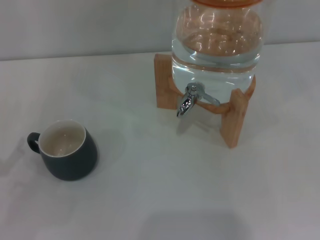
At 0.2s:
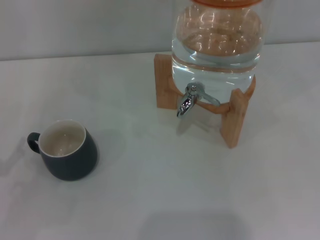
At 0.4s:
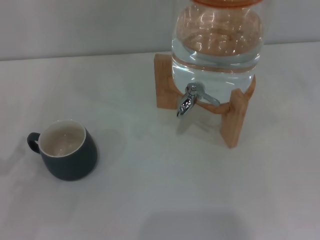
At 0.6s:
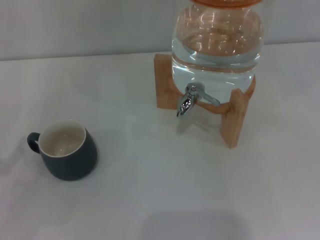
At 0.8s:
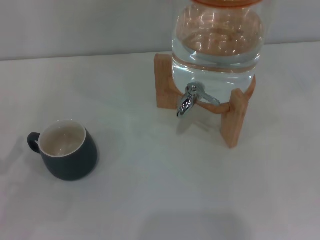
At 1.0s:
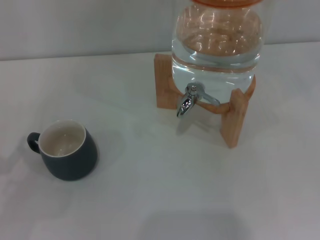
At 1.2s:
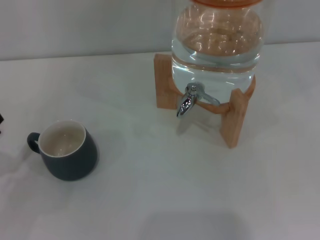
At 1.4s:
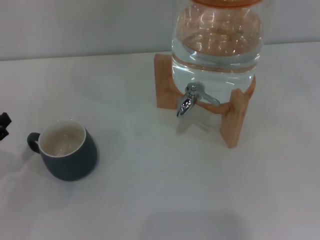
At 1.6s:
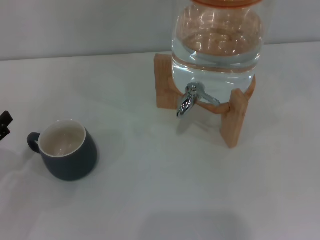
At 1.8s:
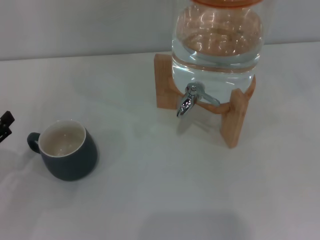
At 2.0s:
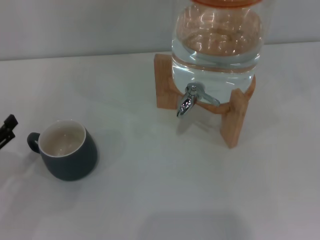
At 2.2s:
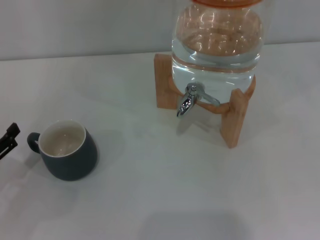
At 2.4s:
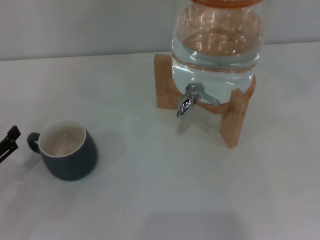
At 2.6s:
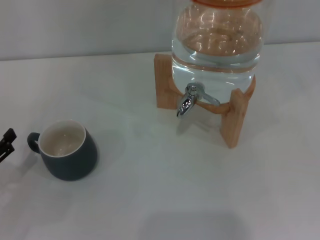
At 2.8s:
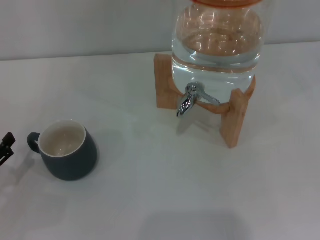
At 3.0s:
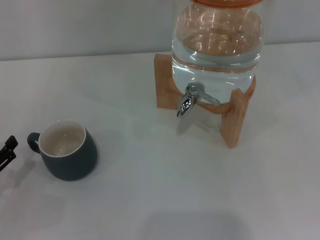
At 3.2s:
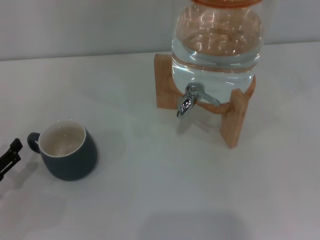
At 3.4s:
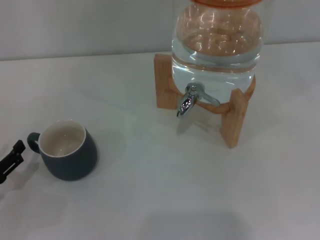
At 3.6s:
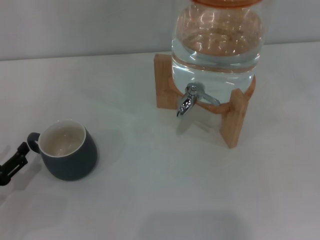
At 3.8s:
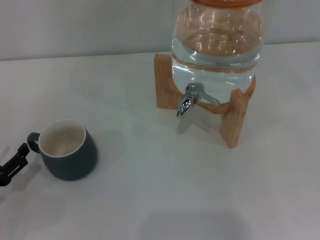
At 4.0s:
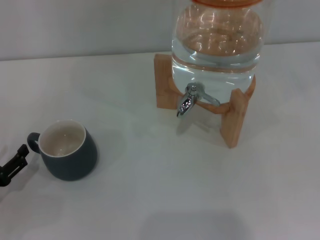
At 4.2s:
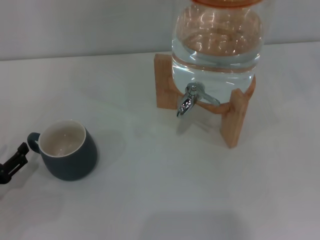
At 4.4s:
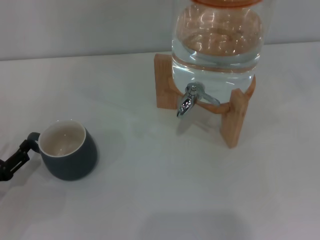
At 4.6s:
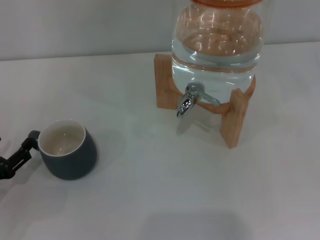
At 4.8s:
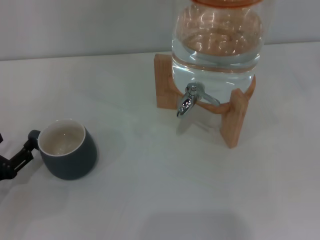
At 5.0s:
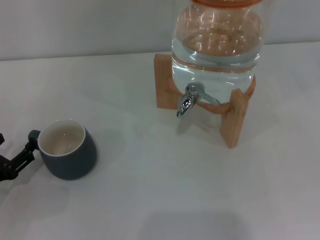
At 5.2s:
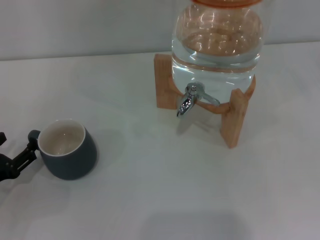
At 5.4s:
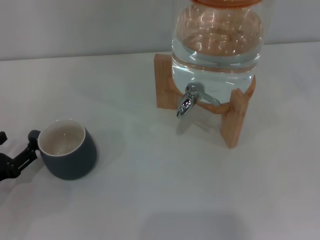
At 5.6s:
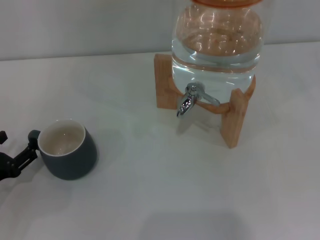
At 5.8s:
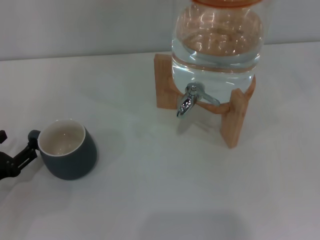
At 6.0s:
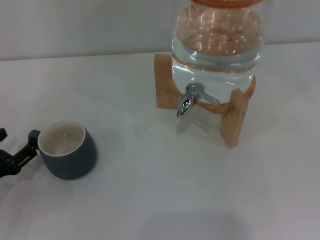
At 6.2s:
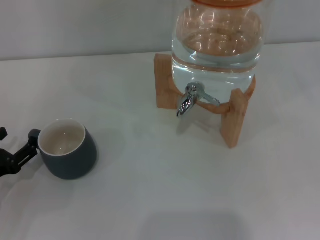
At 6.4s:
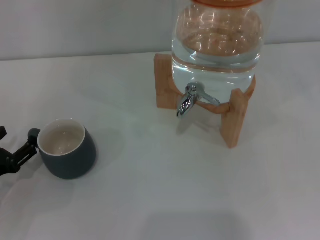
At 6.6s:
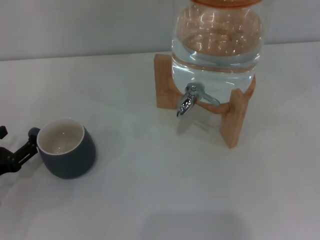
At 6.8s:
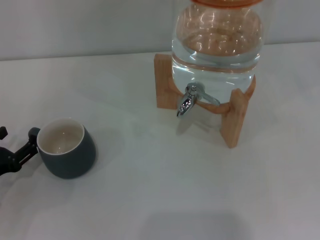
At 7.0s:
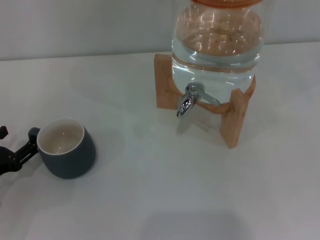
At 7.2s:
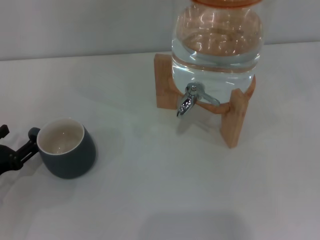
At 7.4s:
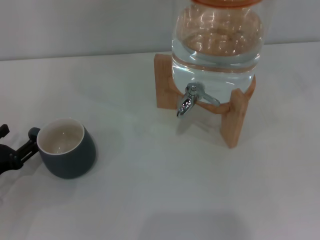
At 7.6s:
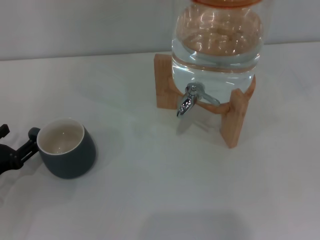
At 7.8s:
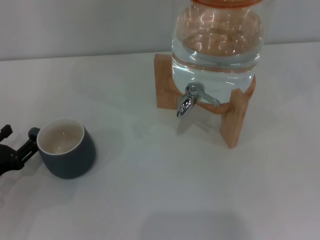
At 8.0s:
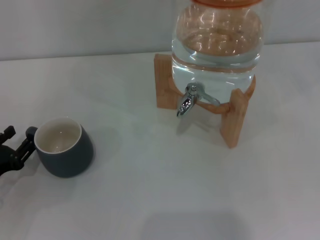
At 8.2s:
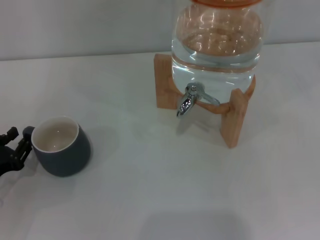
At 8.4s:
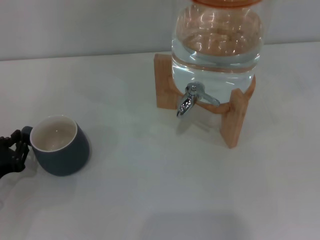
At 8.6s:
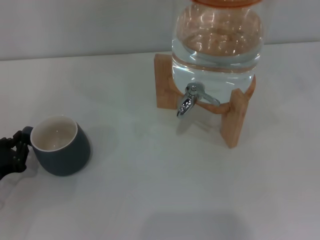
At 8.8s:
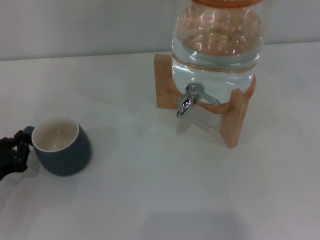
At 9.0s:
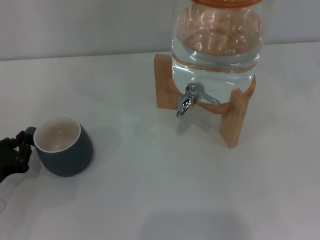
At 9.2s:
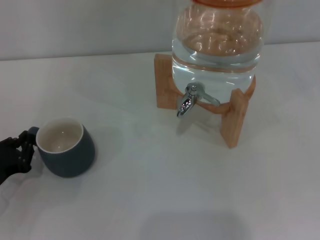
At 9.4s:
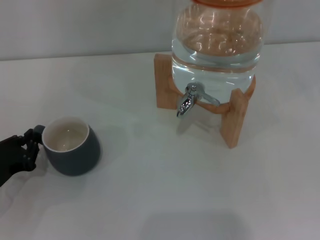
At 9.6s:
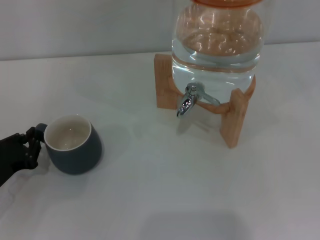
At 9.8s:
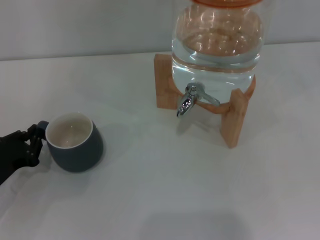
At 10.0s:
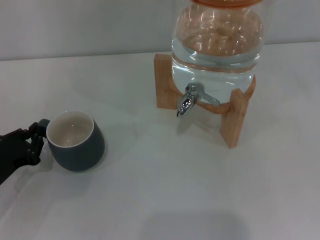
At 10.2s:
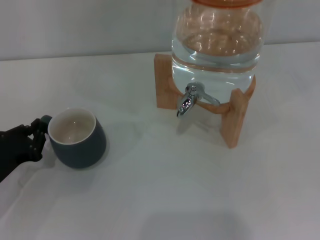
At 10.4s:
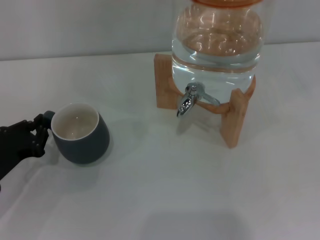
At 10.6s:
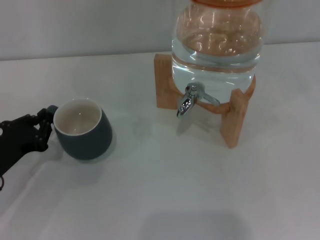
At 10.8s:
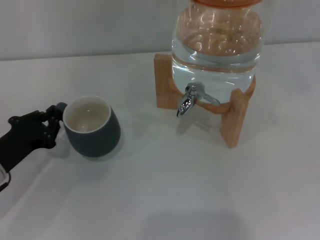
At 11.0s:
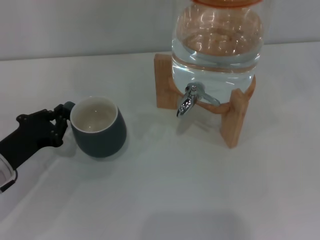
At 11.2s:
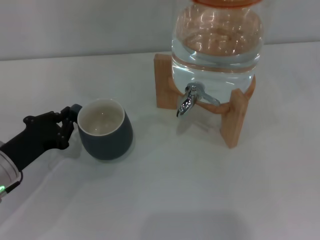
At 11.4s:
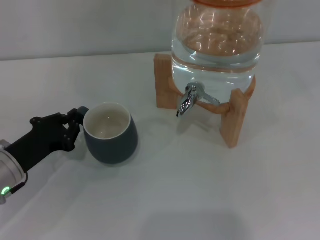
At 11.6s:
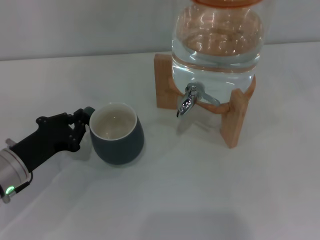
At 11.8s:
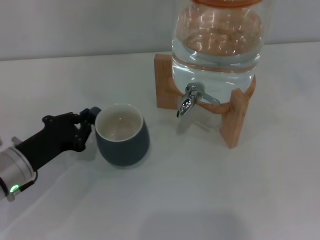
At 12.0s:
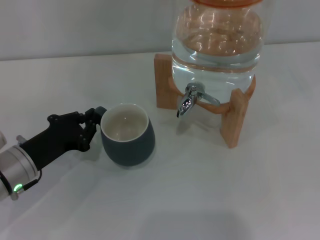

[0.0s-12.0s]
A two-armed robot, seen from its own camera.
Task of the whole recording: the left gripper pick up the black cup and place it horizontally under the faucet, the right gripper turn on the faucet to fill the cup, and then turn off the faucet.
1.6s to 4.4s: The grippers stay close to where they were, moving slightly.
6.0s to 7.6s: Both grippers stay about where they are.
7.6s to 9.0s: The left gripper closes up.
9.0s to 10.4s: The grippers make only small movements.
10.4s to 12.0s: The left gripper heads to the right, covering roughly 5 cm.

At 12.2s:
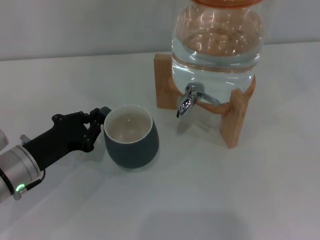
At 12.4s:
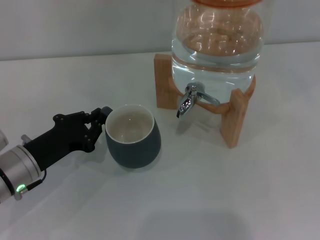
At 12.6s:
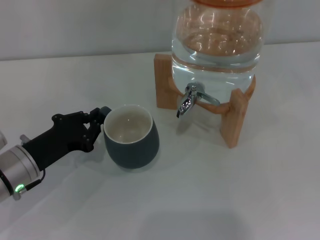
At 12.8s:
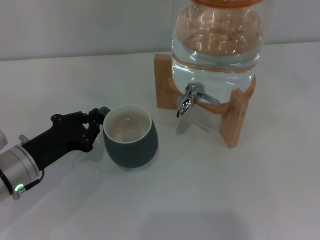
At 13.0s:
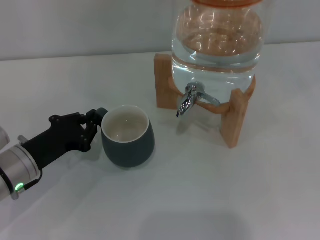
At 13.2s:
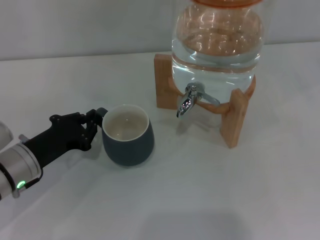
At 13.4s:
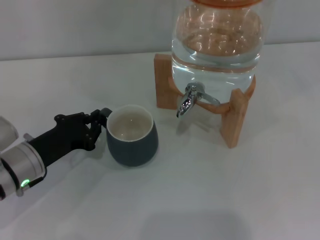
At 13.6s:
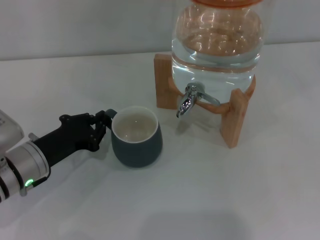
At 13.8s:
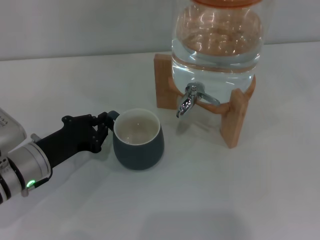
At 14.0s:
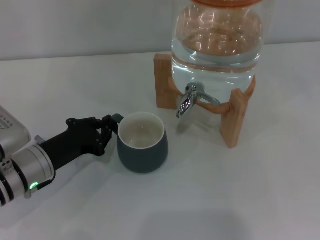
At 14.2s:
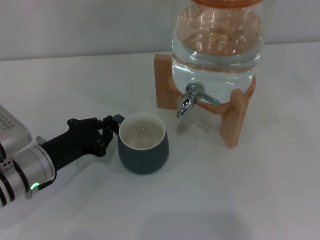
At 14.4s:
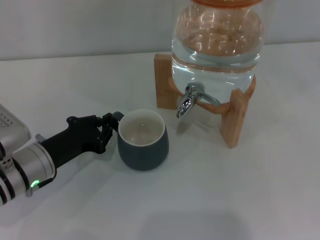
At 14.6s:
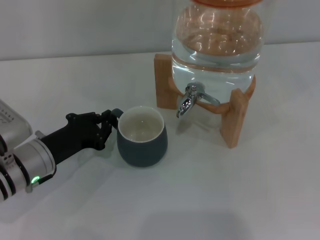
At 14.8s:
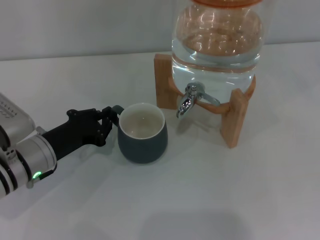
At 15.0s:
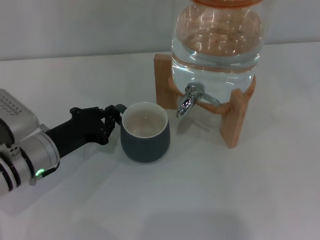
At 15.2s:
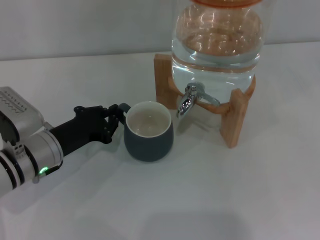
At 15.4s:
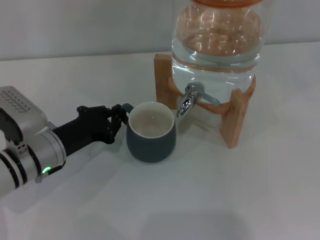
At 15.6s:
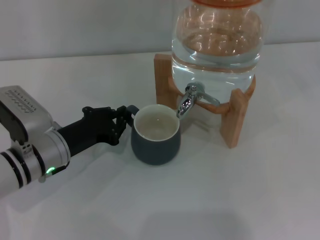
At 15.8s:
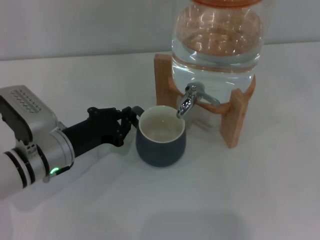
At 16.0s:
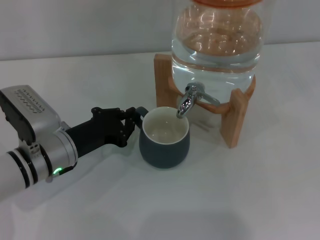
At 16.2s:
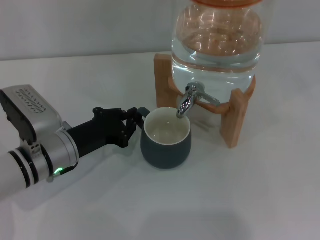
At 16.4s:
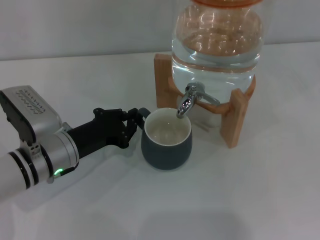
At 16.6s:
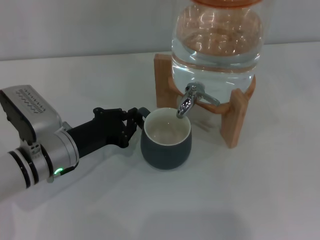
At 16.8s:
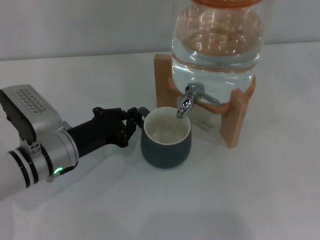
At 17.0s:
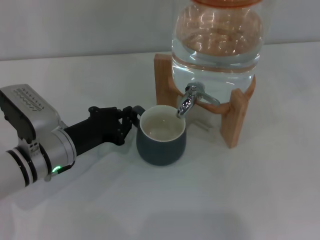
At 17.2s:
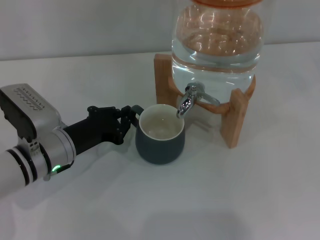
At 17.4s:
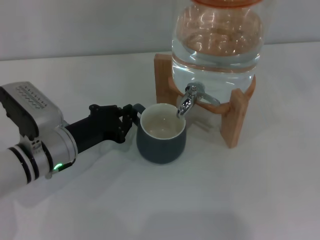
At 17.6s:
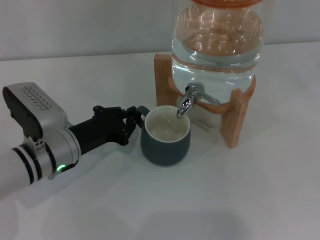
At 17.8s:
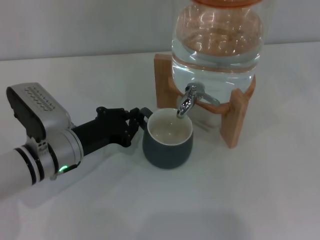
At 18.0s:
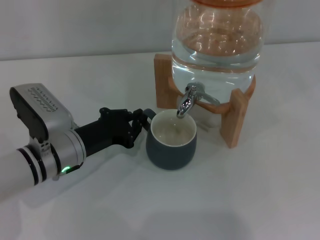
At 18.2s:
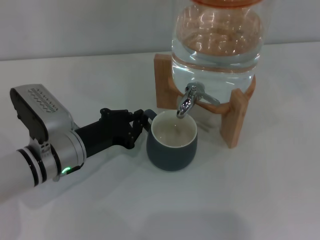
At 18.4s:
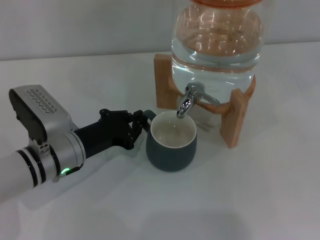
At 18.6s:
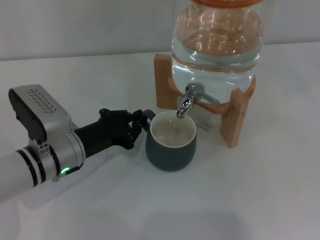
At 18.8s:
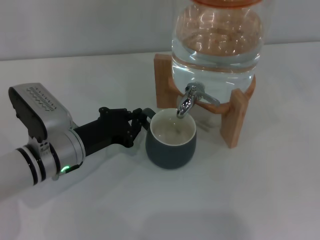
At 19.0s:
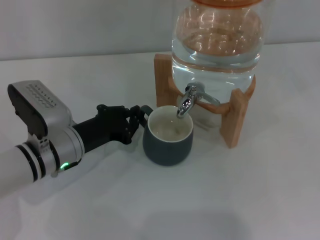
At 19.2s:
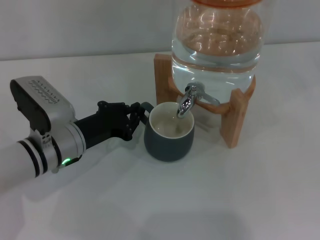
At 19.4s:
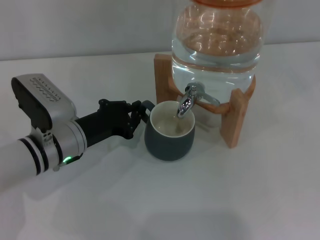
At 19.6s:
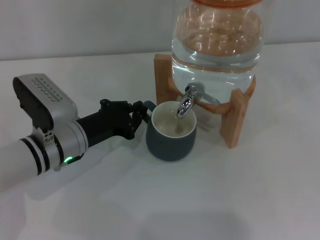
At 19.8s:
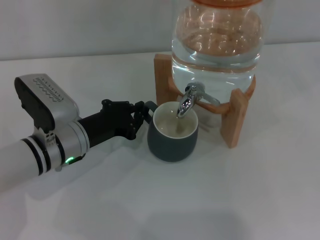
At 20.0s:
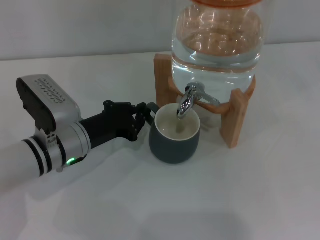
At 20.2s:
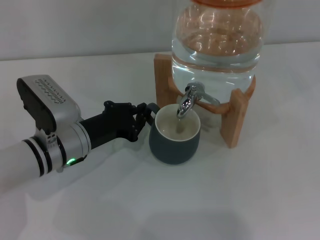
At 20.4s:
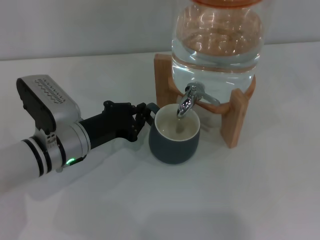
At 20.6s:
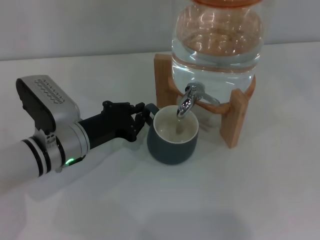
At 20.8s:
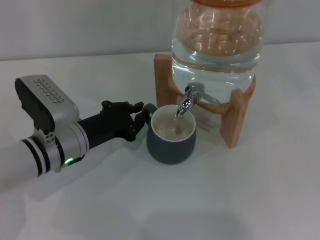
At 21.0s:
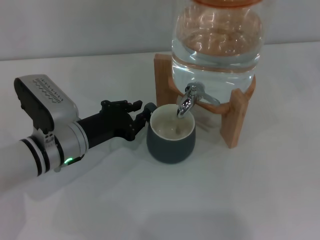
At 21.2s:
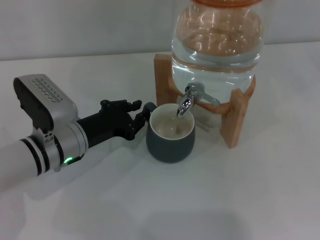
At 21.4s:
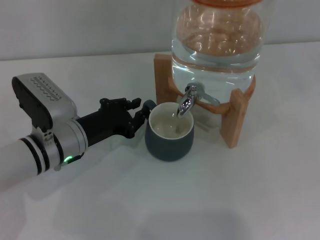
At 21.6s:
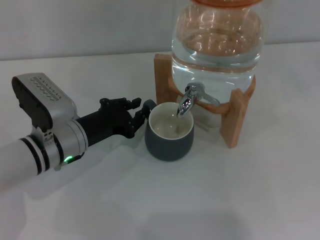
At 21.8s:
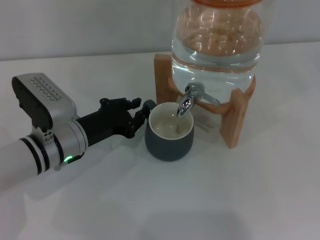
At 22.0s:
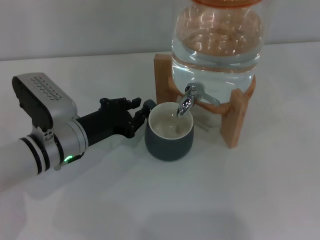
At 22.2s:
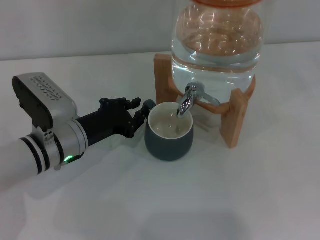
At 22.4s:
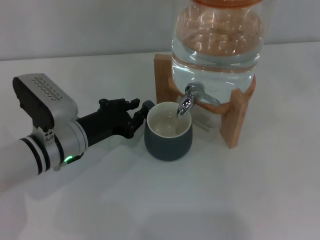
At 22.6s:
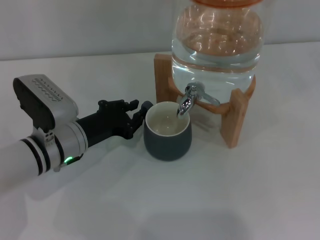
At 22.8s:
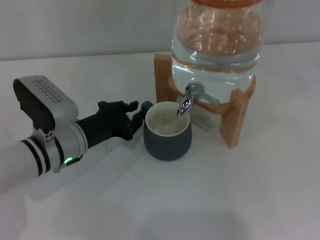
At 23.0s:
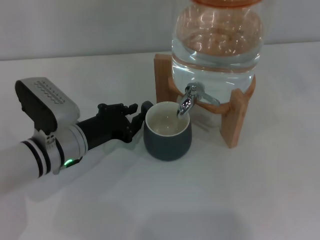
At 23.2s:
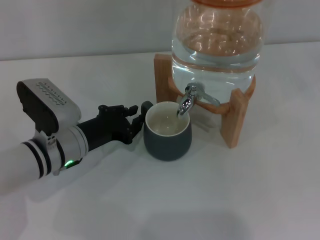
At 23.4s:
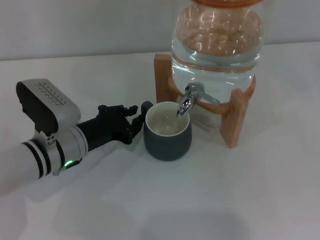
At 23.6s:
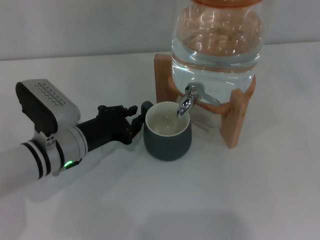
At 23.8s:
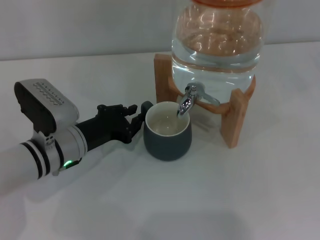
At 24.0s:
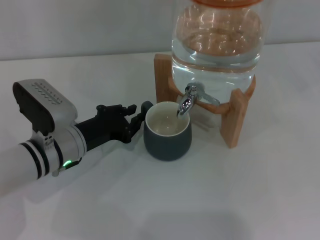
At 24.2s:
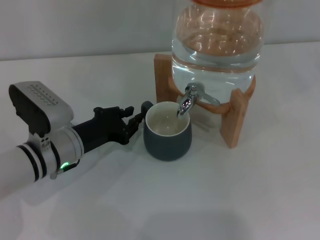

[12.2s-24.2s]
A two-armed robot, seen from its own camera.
Task of the whole recording: the left gripper pick up the black cup and place it horizontally under the faucet, the right gripper turn on the faucet to fill the cup, and then turn off the faucet.
12.2s to 16.6s: The grippers move only a little.
16.6s to 18.2s: Both grippers stay about where they are.
18.2s to 19.8s: The grippers make only small movements.
19.8s to 22.6s: Both grippers stay about where they are.
22.6s to 24.2s: Neither gripper changes place.
